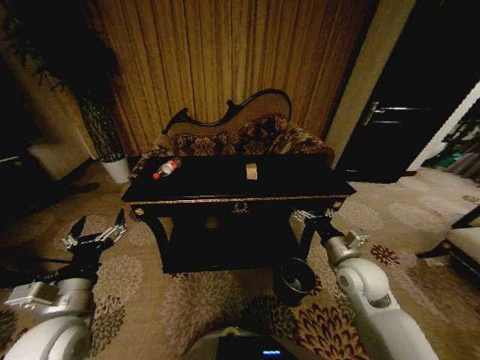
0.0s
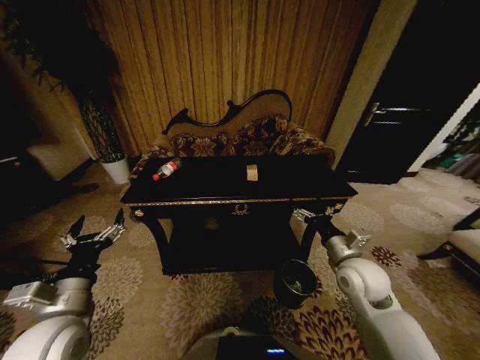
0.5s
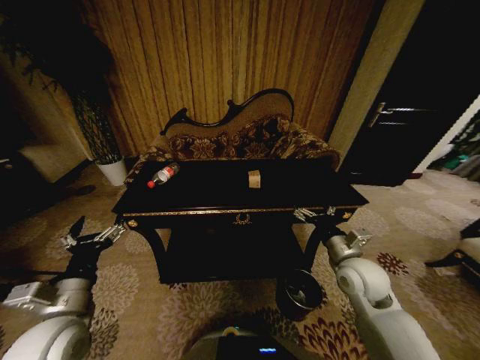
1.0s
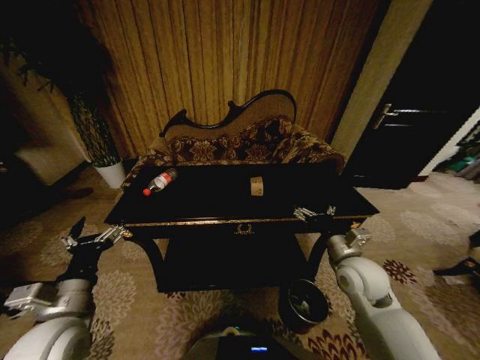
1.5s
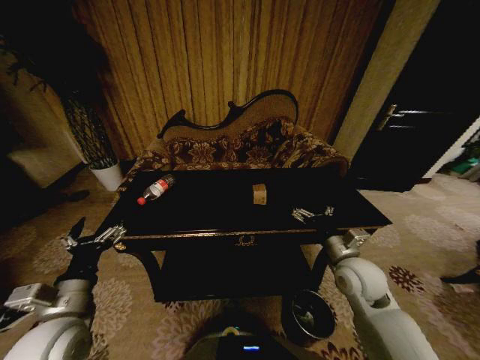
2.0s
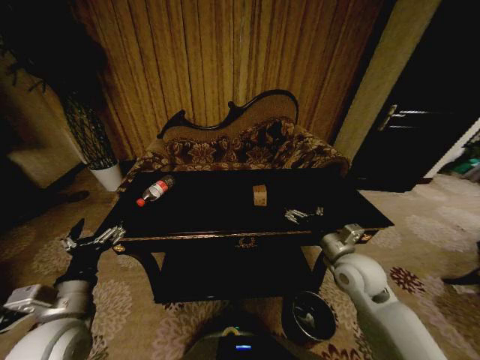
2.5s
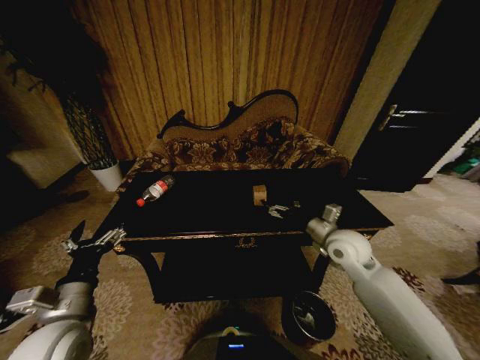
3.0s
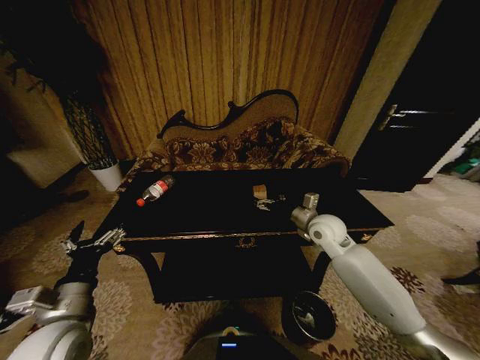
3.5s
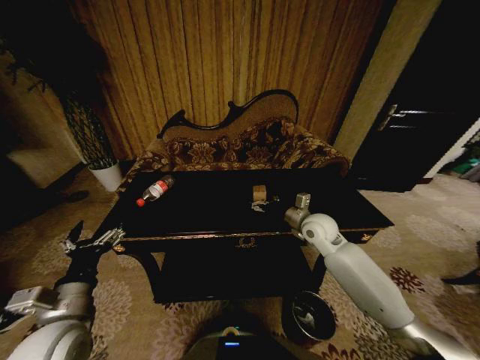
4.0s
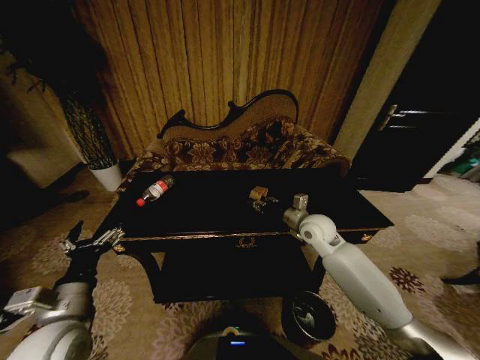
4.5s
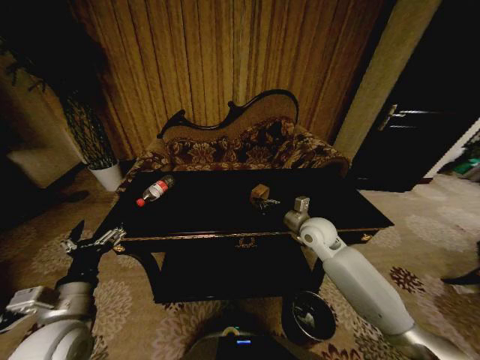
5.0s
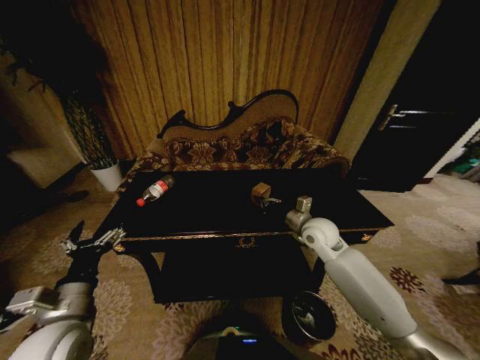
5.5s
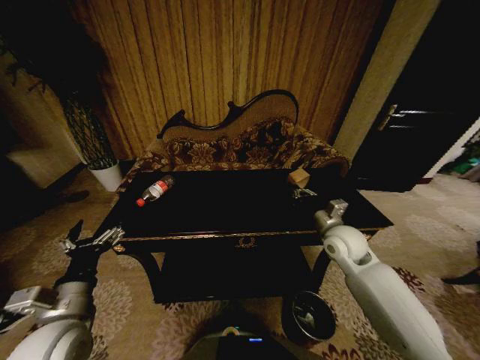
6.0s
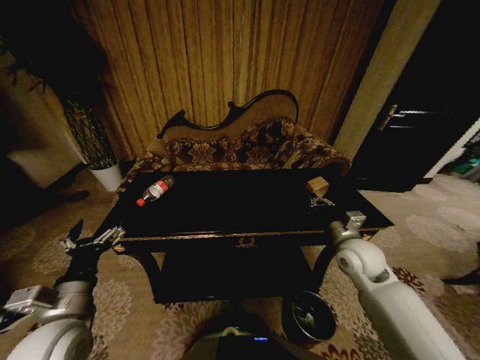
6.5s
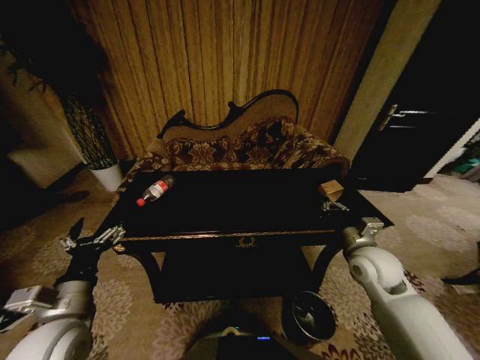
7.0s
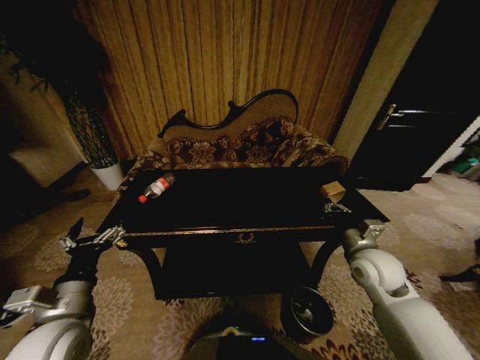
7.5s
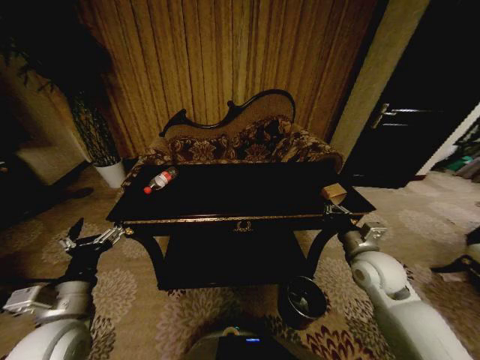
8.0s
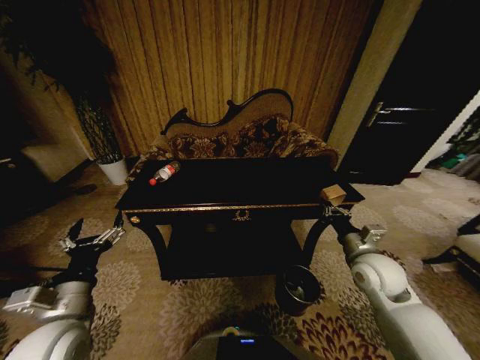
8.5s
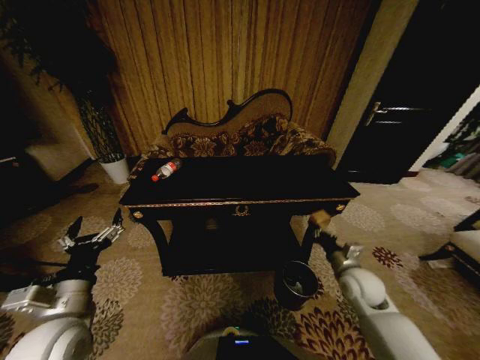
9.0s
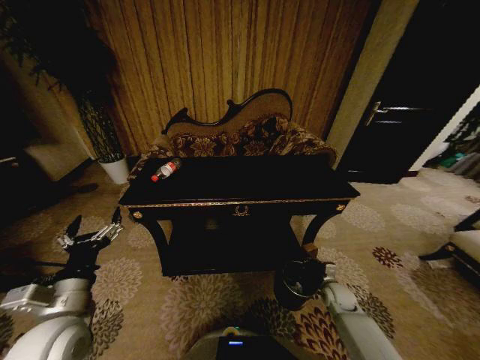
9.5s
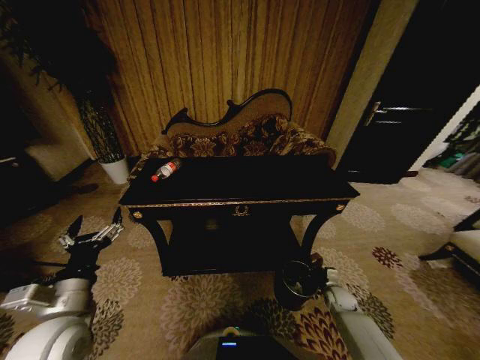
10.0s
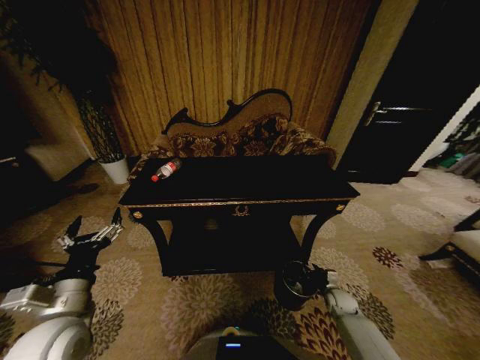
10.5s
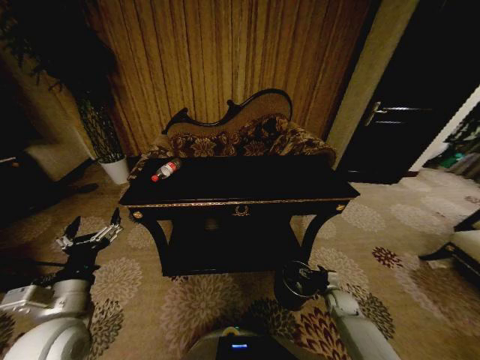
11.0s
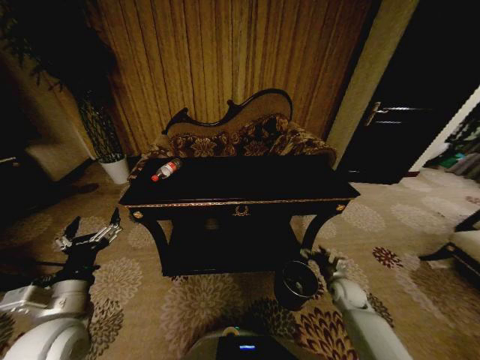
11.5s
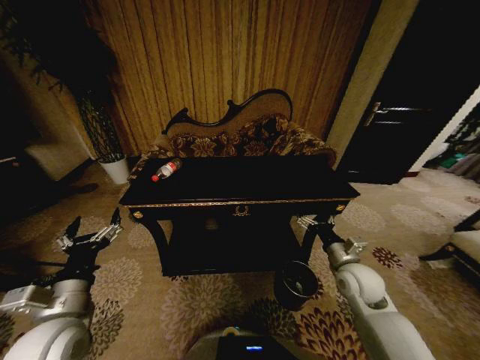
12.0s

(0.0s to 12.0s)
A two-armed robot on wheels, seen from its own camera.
Task of the whole recording: Move to the front of the table and place the trash on the table into the trash bin.
2.0s - 4.0s: The right gripper is displaced forward by roughly 15 cm.
4.0s - 6.0s: The right gripper shifts roughly 5 cm backward, and closes up.
6.0s - 8.0s: The right gripper moves backward, some 5 cm.
8.0s - 10.0s: The right gripper moves downward, roughly 30 cm.
10.0s - 12.0s: The right gripper goes about 25 cm upward, and opens up.

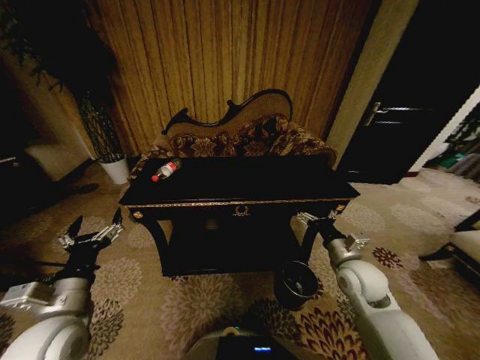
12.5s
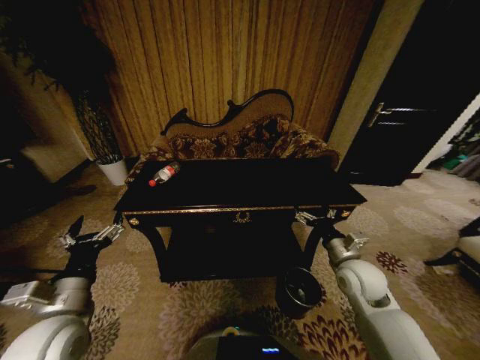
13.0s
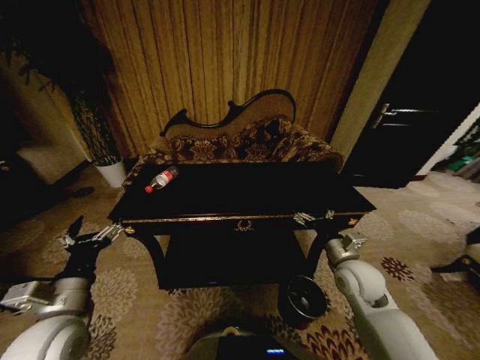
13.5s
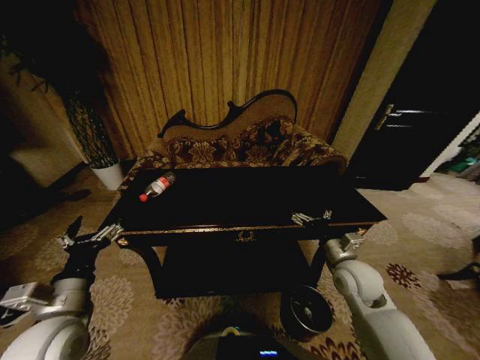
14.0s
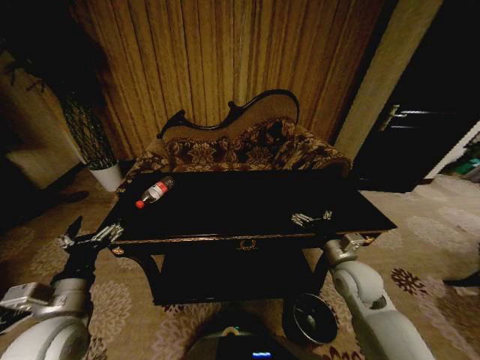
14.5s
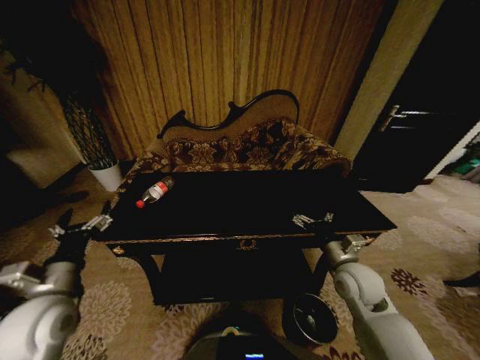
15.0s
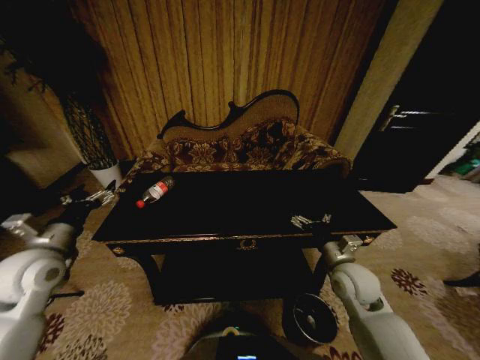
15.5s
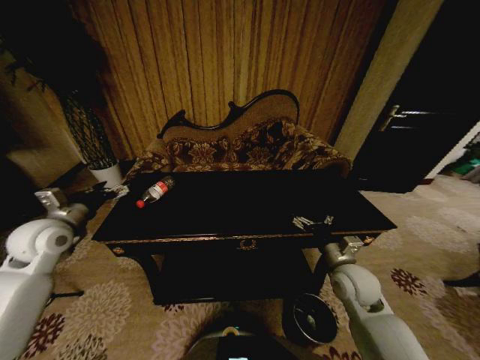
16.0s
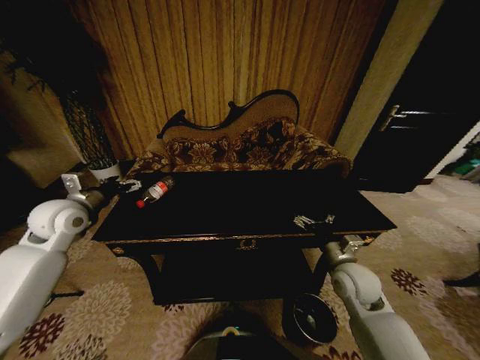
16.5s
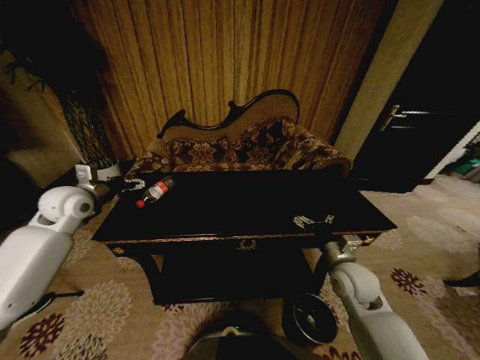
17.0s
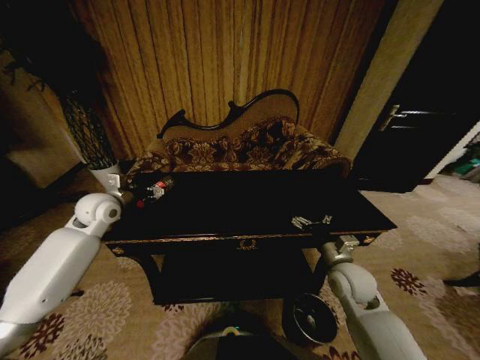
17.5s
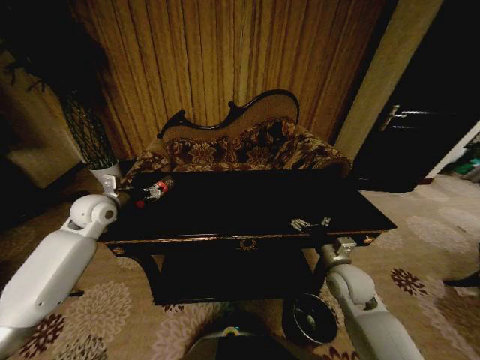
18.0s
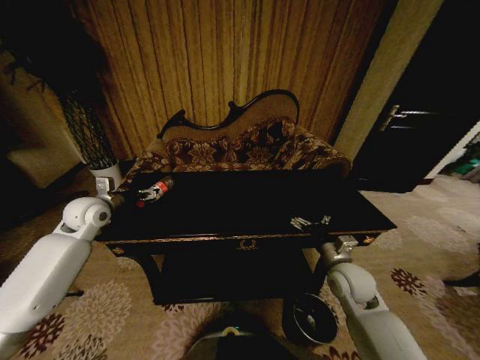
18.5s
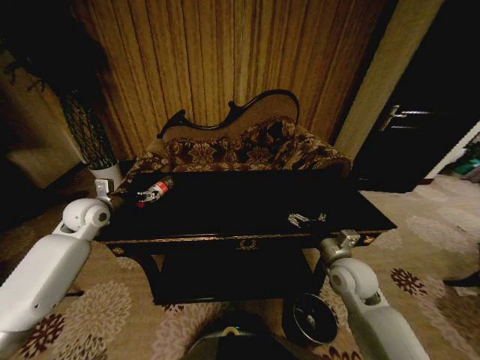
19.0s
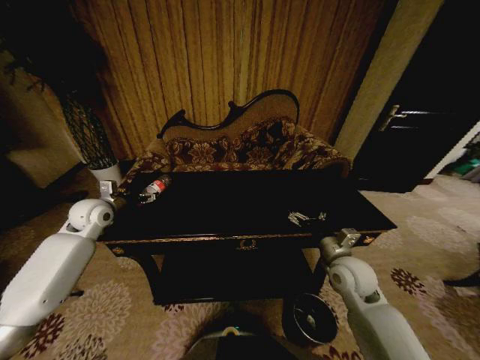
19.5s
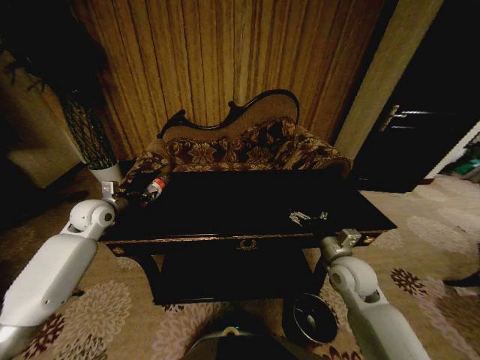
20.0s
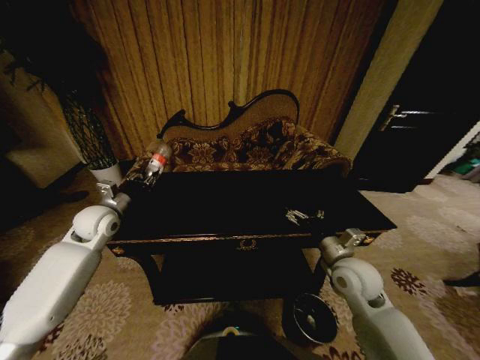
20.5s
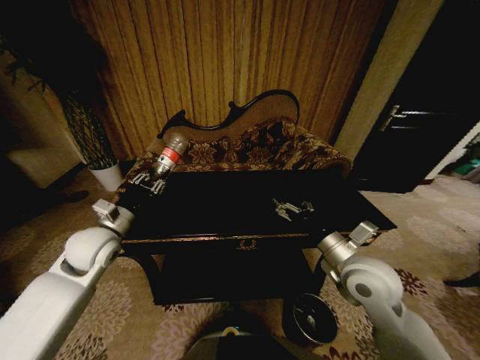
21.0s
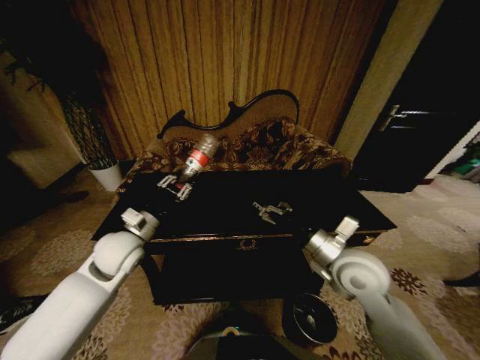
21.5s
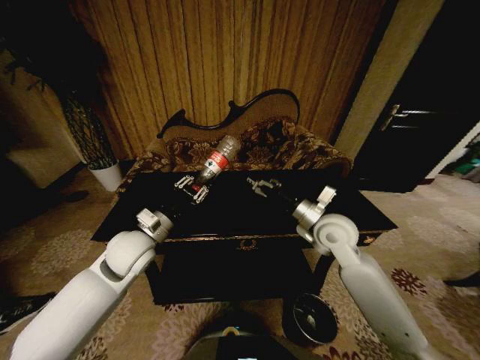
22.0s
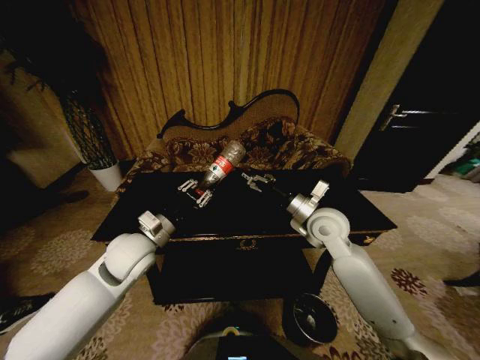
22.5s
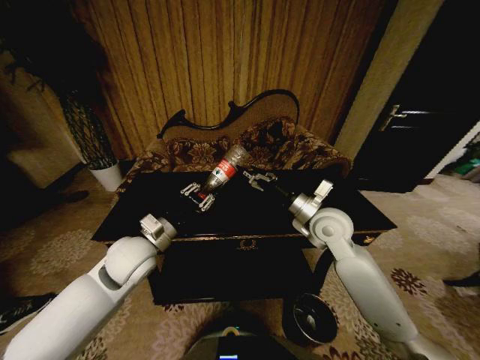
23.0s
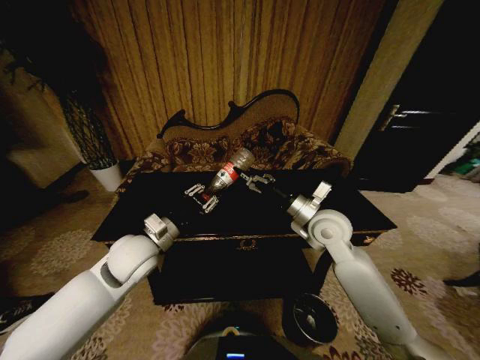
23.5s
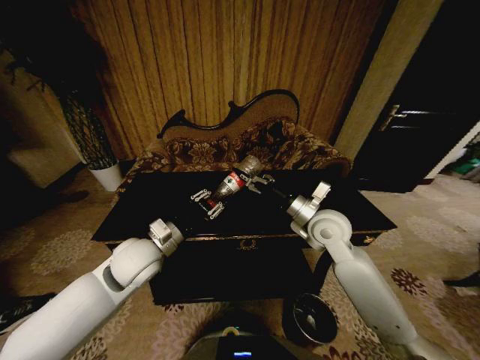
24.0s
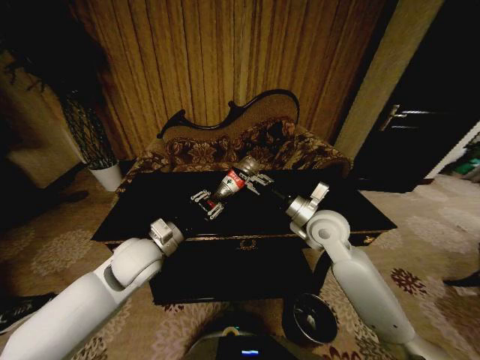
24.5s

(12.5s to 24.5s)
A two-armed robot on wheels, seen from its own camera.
Task of the whole recording: Move to the front of the table and place the trash on the table into the trash bin.
14.5s - 16.5s: The left gripper travels forward by approximately 25 cm.
16.5s - 18.5s: The left gripper shifts by approximately 5 cm.
18.5s - 20.5s: The left gripper closes.
20.5s - 22.5s: The right gripper heads forward, upward and to the left, covering about 15 cm; the left gripper moves to the right and backward, about 20 cm.
22.5s - 24.5s: The right gripper closes up.

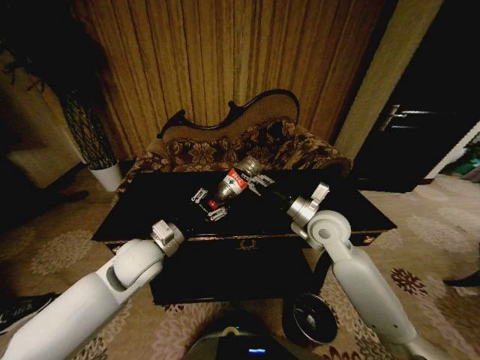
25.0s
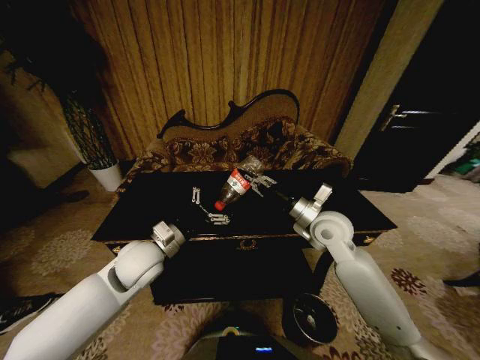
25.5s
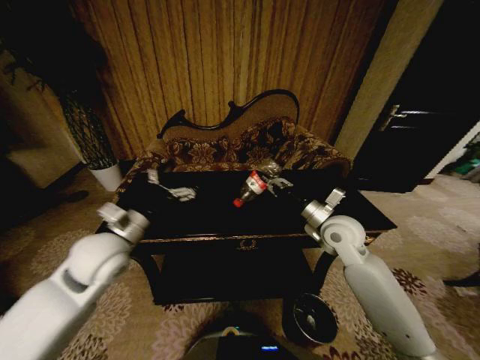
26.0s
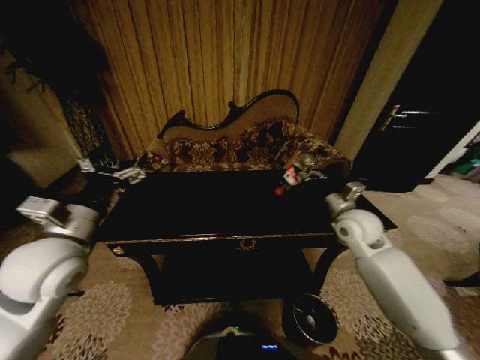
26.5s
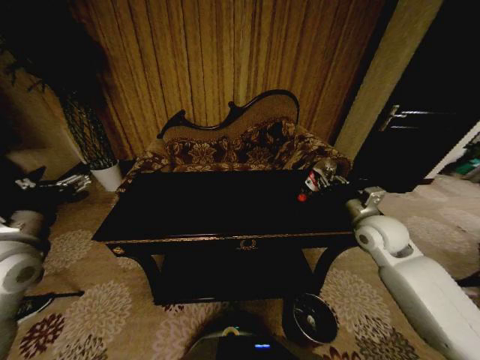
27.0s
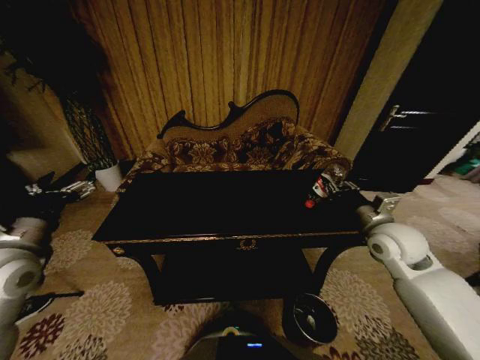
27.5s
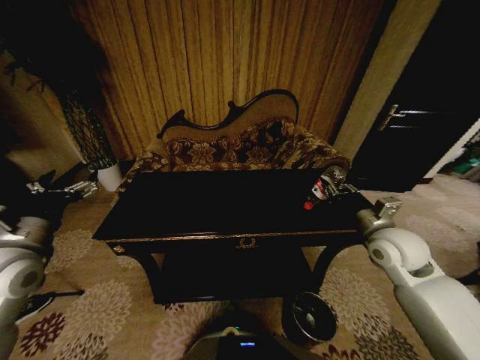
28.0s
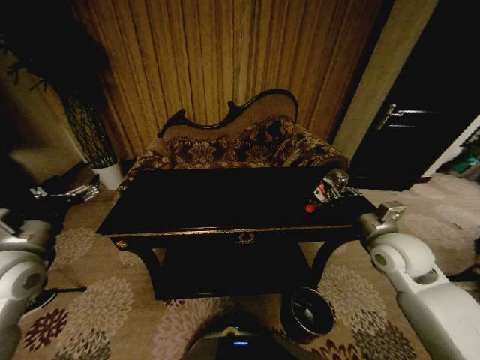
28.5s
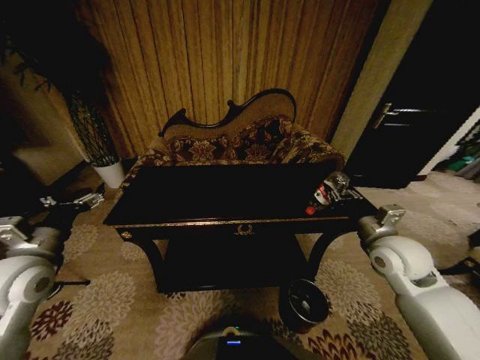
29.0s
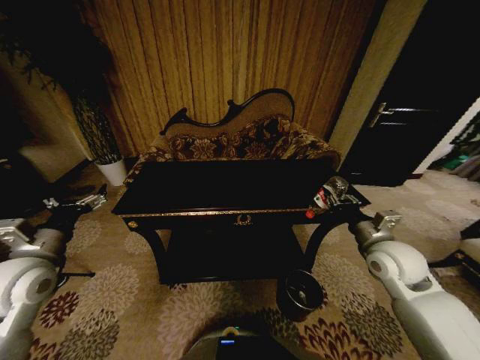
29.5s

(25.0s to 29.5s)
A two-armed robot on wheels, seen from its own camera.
Task of the whole recording: Move to the front of the table and place the trash on the table into the trash bin.
25.0s - 27.0s: The right gripper shifts about 15 cm to the right, while the left gripper is displaced to the left and upward by some 20 cm, and opens its fingers.
27.0s - 29.5s: The right gripper moves backward, roughly 5 cm.
